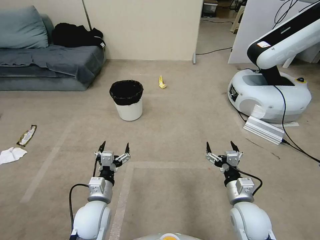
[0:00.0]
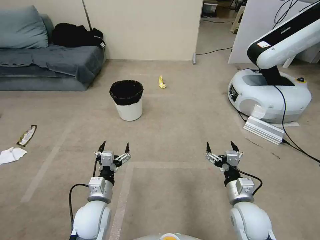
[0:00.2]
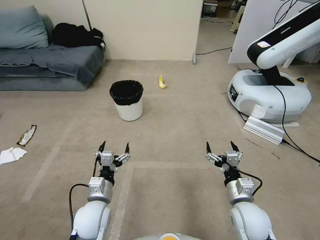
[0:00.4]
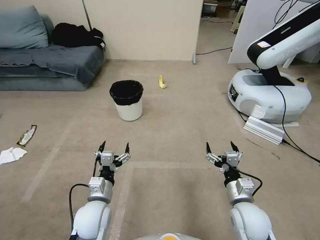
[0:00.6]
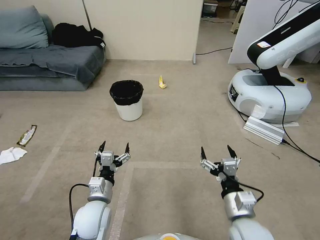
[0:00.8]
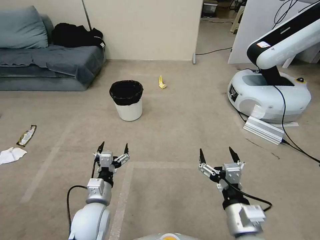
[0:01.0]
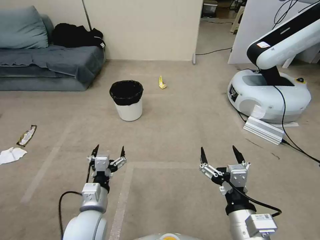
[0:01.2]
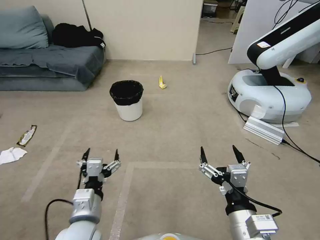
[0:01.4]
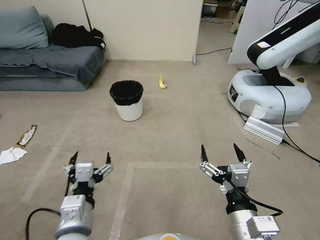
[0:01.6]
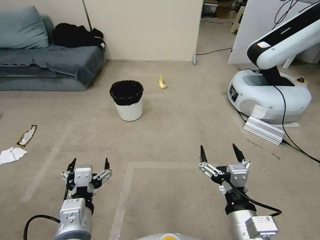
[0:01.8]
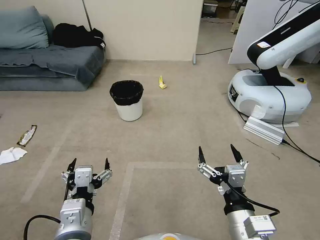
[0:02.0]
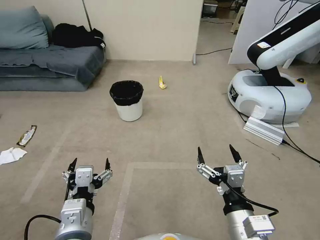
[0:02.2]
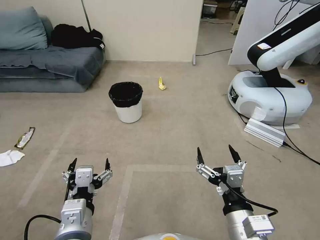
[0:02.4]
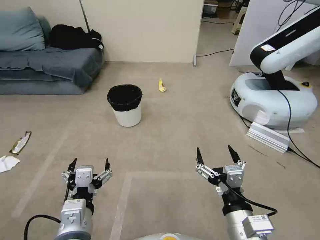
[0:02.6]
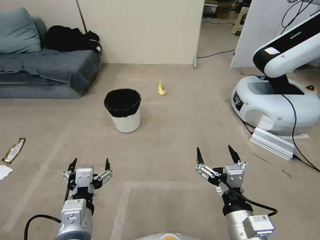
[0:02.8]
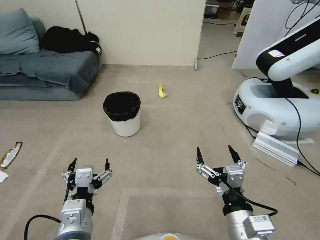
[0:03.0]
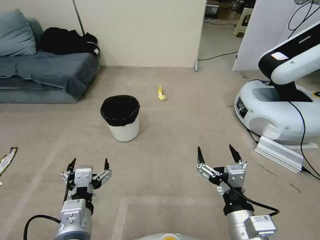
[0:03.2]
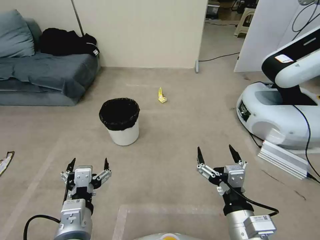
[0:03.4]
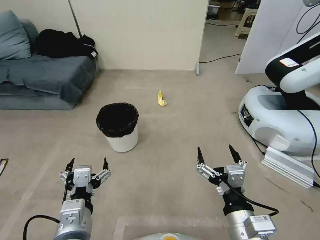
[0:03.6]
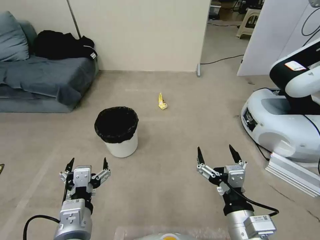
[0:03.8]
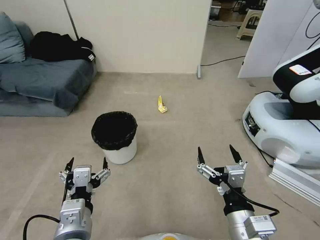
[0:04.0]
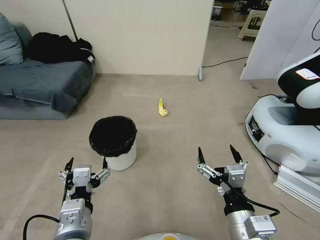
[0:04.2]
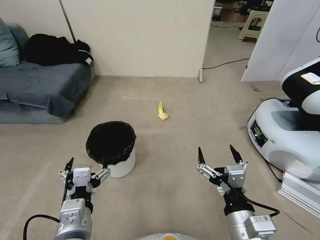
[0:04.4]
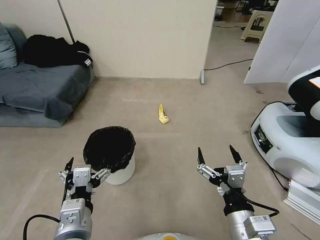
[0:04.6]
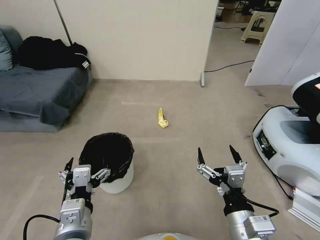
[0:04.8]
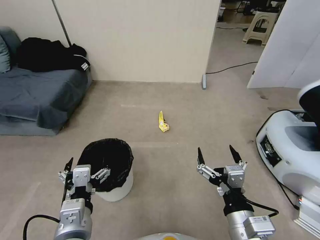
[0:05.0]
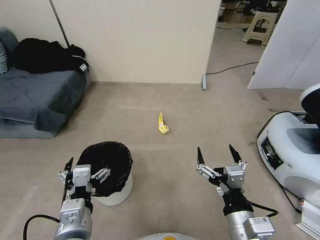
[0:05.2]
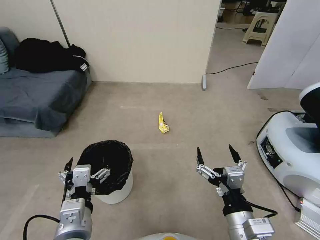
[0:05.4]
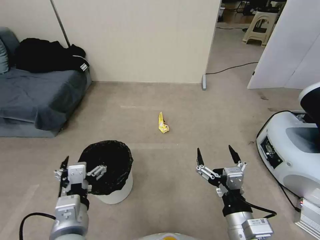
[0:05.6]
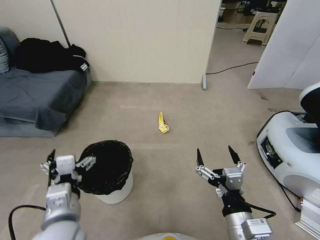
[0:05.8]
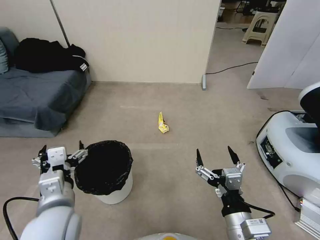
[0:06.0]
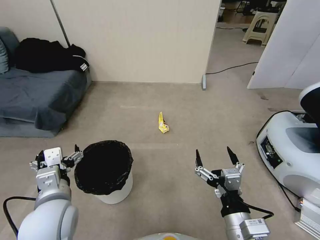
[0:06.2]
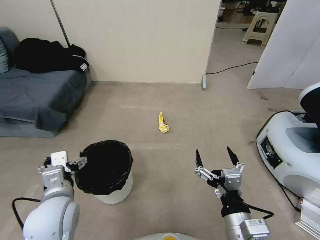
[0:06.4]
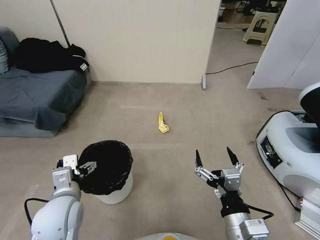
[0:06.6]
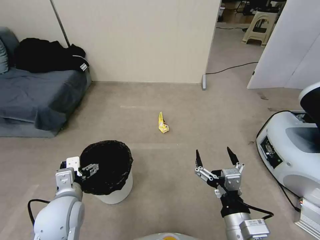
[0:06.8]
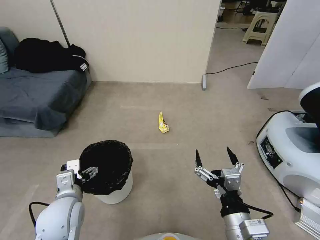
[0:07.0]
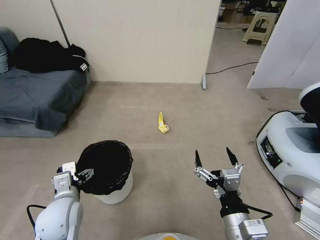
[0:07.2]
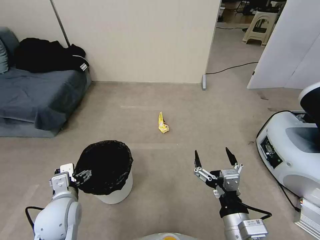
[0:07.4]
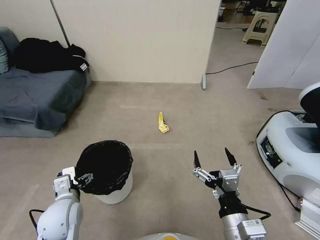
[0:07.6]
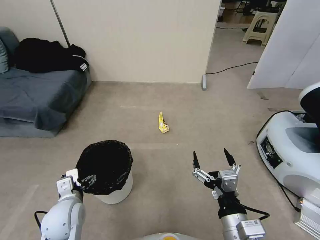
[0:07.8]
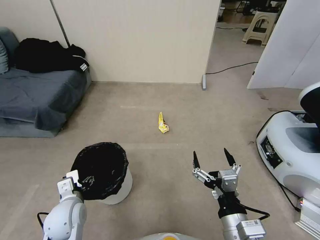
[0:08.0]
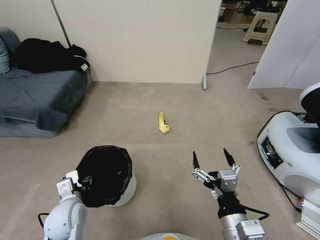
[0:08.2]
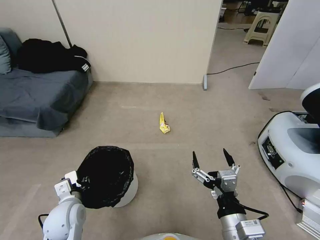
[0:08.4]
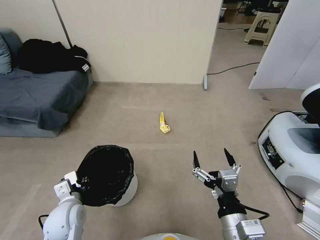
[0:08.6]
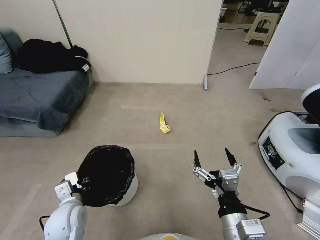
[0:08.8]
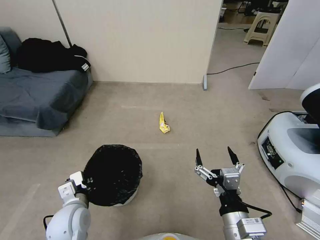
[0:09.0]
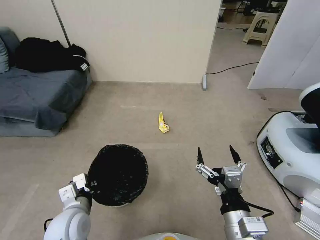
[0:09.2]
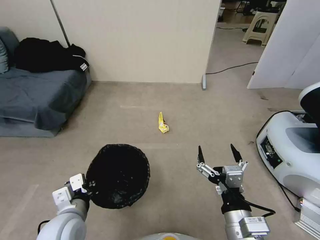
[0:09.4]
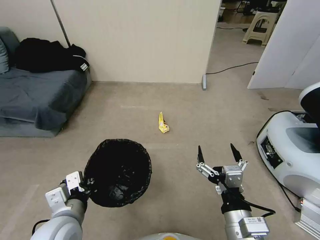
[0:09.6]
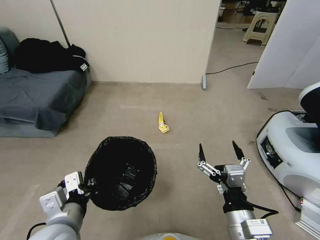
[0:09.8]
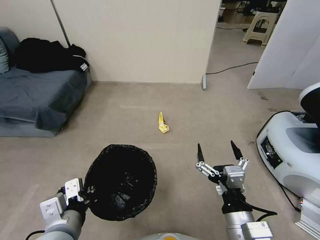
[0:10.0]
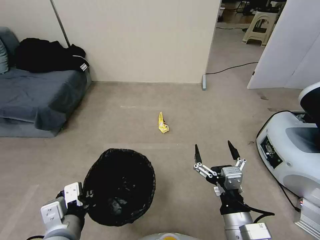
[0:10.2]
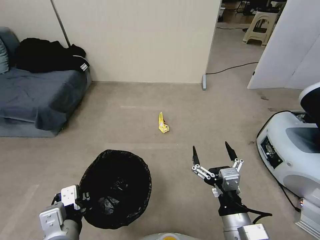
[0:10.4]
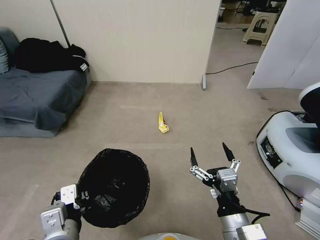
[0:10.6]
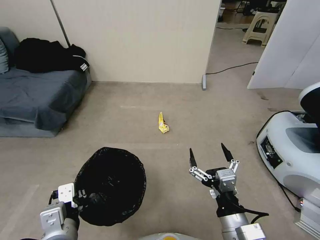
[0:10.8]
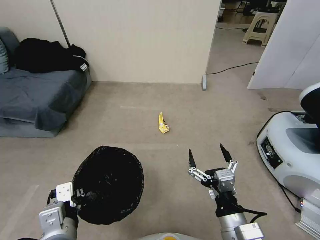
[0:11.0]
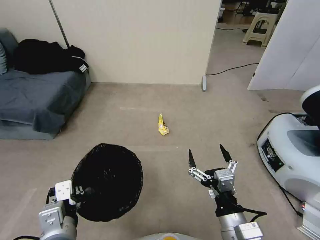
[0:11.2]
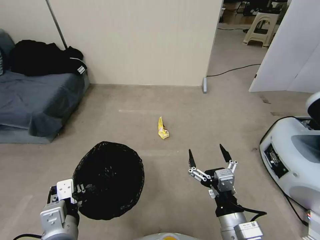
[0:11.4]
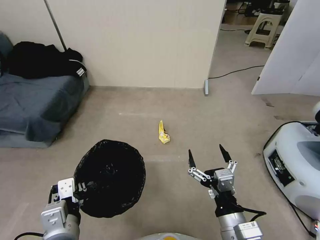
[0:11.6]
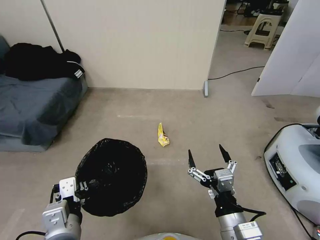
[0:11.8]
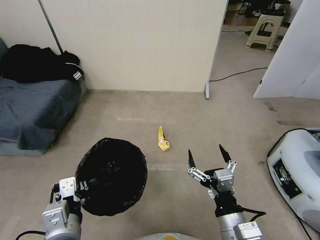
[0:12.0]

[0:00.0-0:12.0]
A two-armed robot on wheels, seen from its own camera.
Task of the whole recording: Pick up the trash bin, then pick up the garbage from the floor and place it into the trash bin.
0:04.4 to 0:06.0: The left gripper changes place by about 5 cm.
0:06.0 to 0:07.6: The left gripper goes some 10 cm downward and to the left.
0:07.6 to 0:09.0: The left gripper closes.
0:09.0 to 0:10.4: The left gripper heads upward and backward, covering some 15 cm.

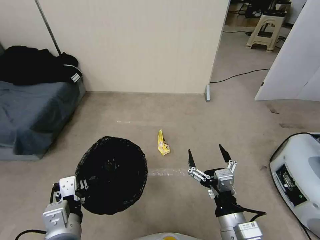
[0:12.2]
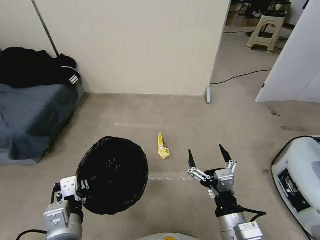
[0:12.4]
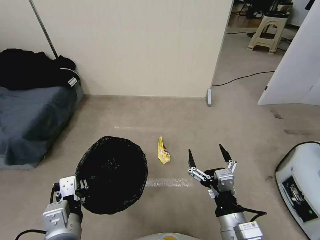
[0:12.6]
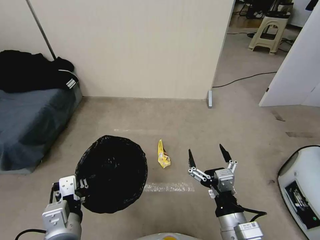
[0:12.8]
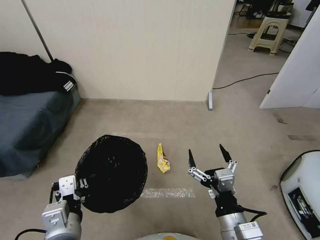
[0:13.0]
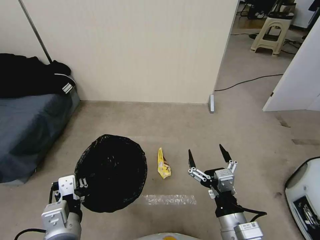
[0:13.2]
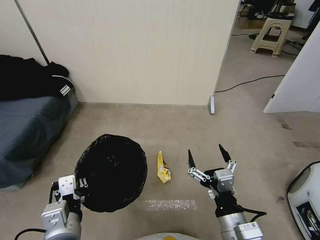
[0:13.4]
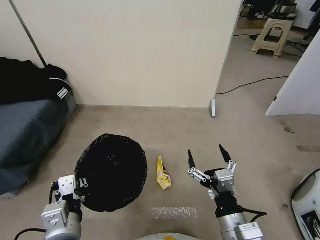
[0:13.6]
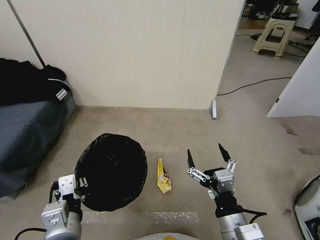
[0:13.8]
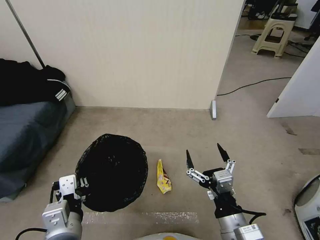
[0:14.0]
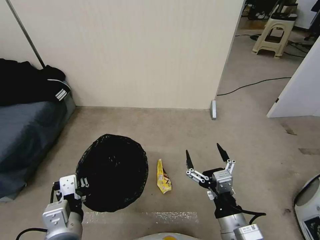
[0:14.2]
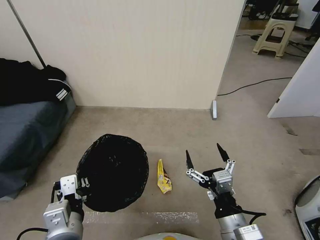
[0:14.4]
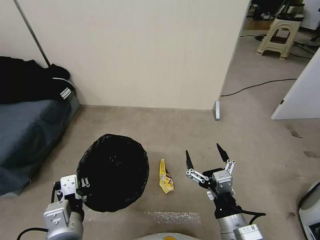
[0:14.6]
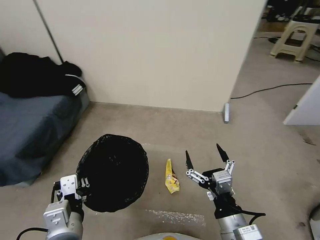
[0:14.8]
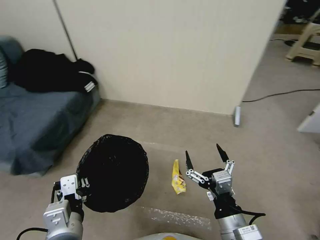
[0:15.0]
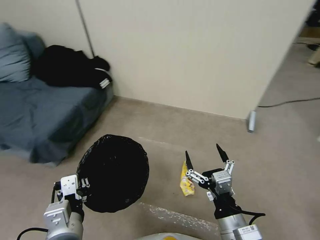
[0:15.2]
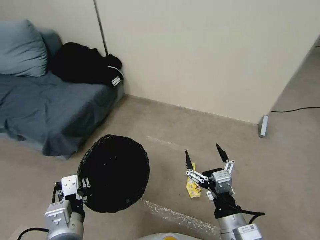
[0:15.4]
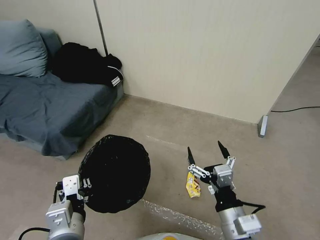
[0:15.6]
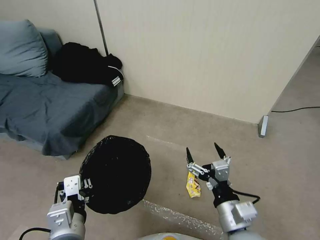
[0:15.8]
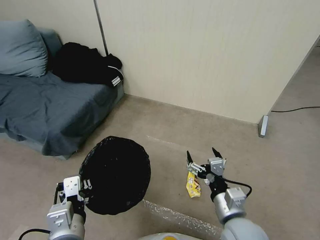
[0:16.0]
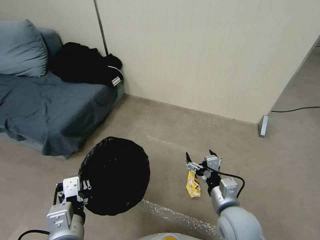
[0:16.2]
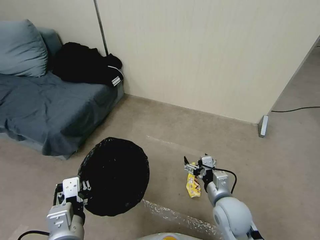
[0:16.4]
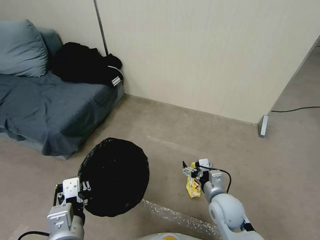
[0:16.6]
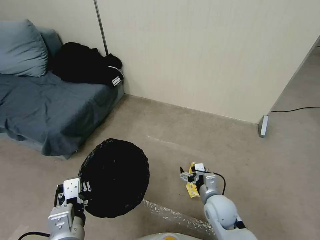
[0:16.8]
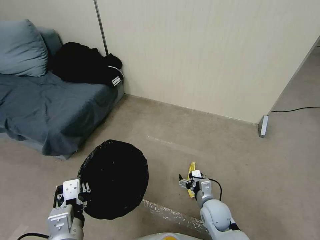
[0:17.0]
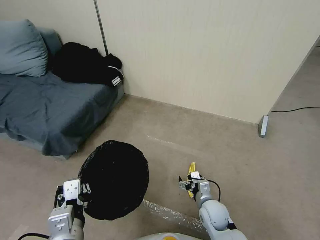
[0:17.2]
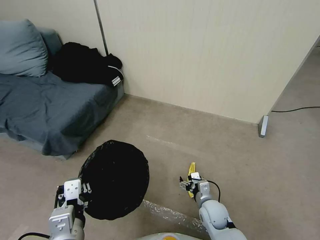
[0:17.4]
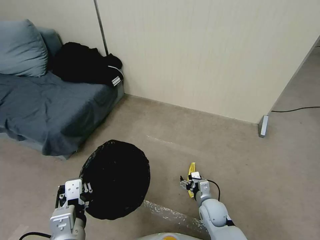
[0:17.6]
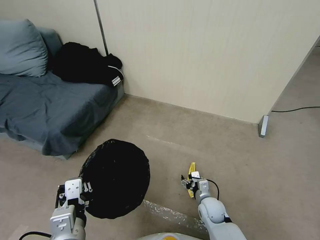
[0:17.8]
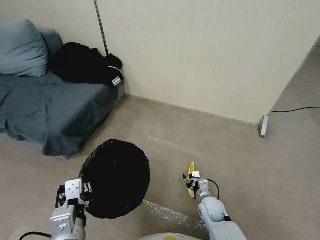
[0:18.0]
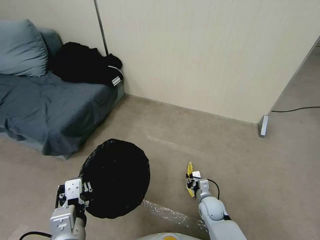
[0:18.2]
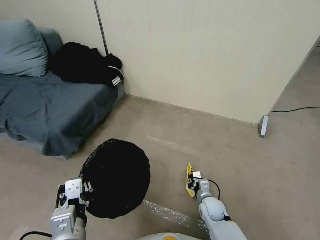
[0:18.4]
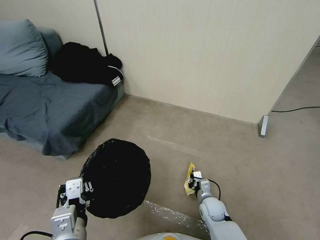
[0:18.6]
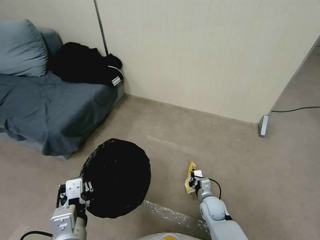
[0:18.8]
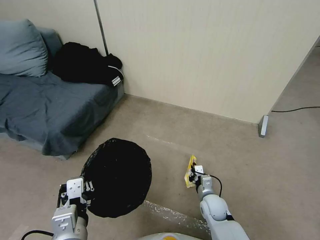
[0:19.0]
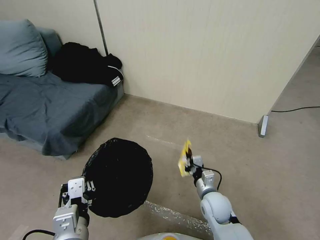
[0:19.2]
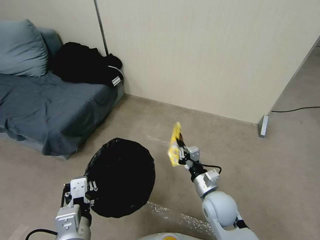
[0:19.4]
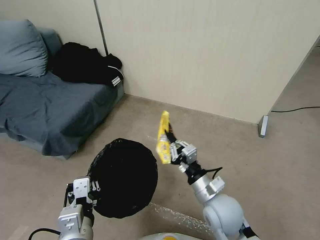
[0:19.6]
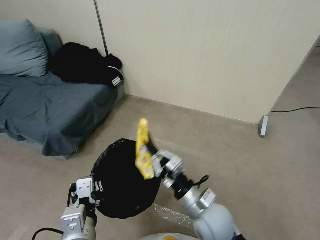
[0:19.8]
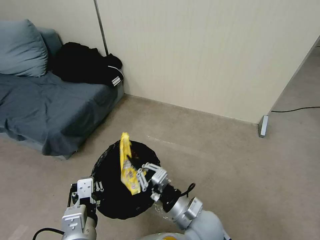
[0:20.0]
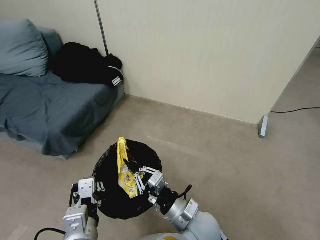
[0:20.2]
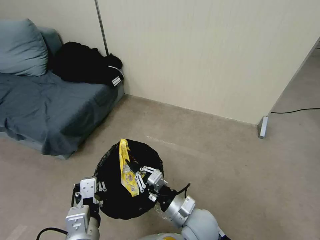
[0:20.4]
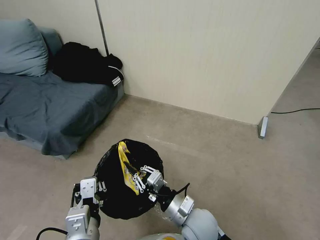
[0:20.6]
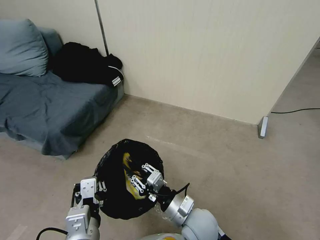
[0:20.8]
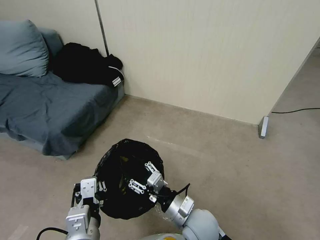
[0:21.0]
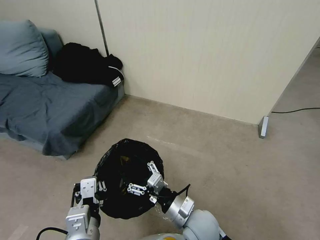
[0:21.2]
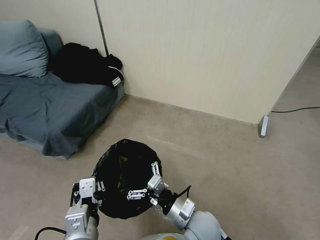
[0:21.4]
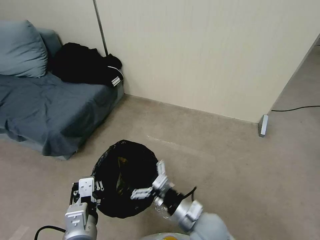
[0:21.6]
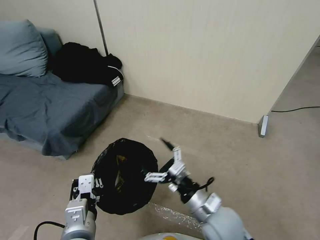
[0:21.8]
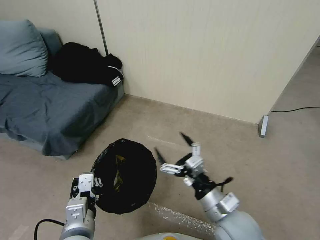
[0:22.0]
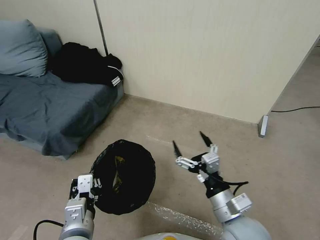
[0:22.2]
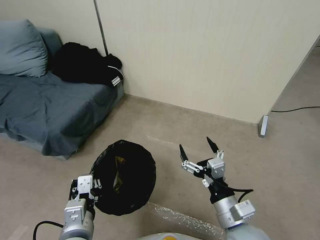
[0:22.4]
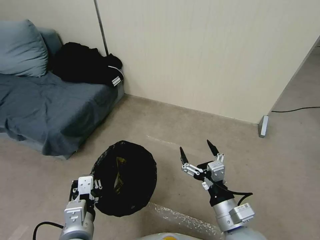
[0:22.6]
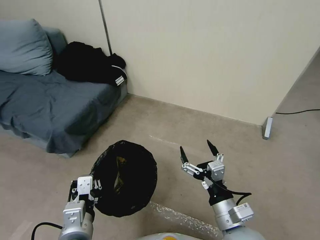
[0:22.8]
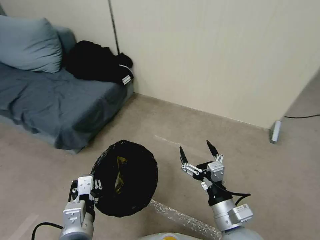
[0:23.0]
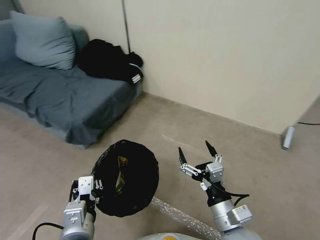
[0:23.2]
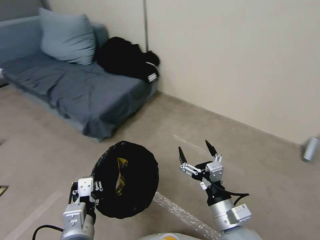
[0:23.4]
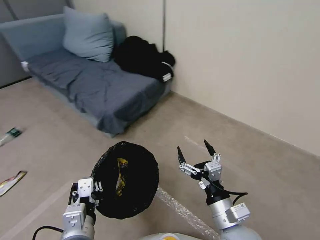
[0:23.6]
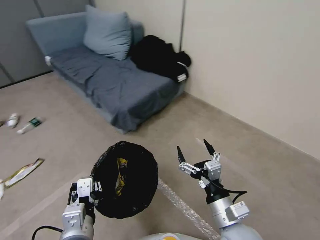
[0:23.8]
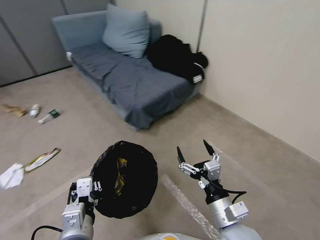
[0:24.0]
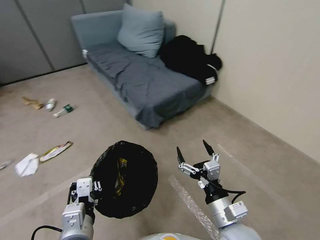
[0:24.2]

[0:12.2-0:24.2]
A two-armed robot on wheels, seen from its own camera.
Task of the whole recording: Pick up the trash bin, then pick up the garbage from the floor and place it into the trash bin.
0:15.2 to 0:16.6: The right gripper moves forward and downward, roughly 15 cm.
0:16.6 to 0:18.2: The right gripper travels downward by about 15 cm, and closes up.
0:18.2 to 0:19.8: The right gripper travels upward by some 20 cm, and closes.
0:19.8 to 0:21.2: The right gripper shifts by roughly 5 cm, and opens its fingers.
0:21.2 to 0:22.6: The right gripper goes roughly 10 cm to the right and upward.
